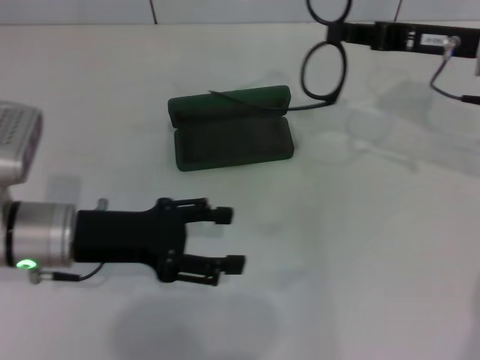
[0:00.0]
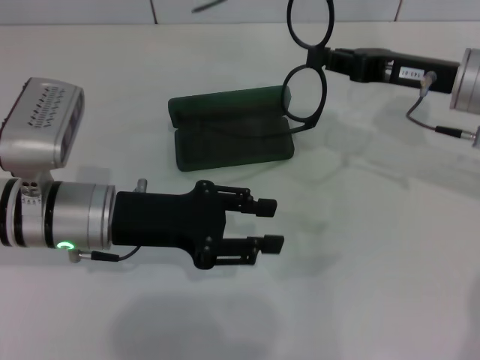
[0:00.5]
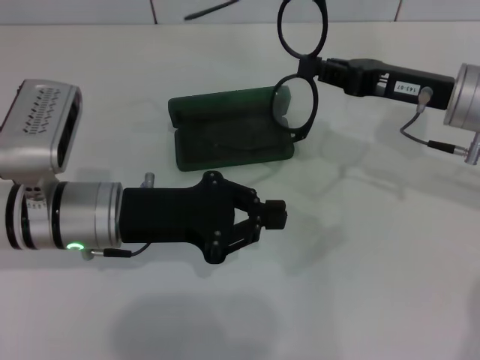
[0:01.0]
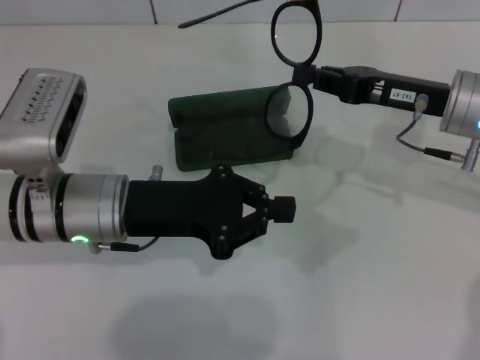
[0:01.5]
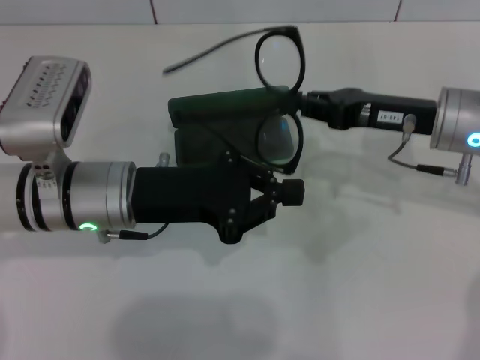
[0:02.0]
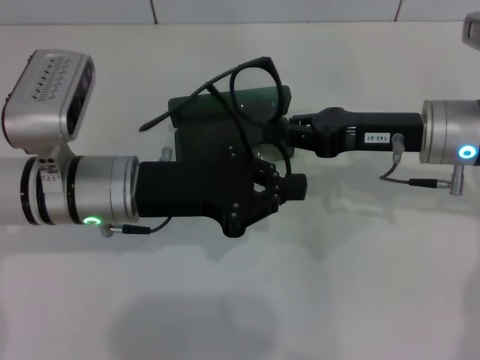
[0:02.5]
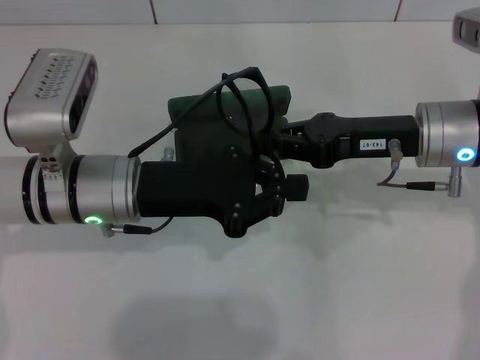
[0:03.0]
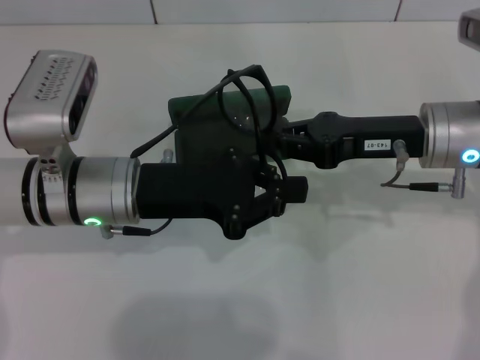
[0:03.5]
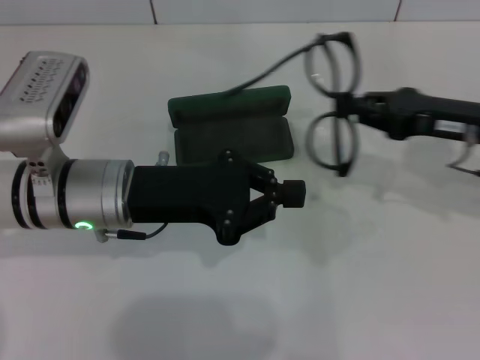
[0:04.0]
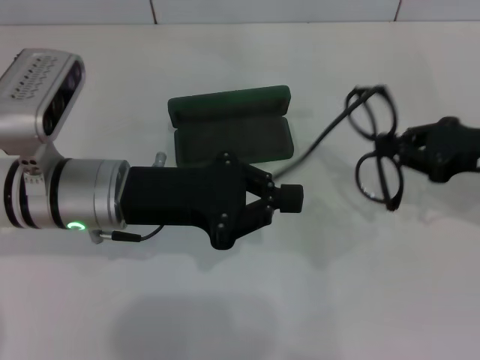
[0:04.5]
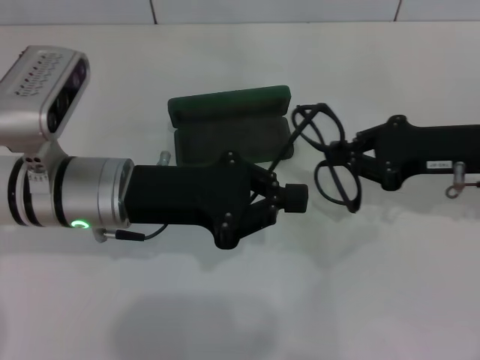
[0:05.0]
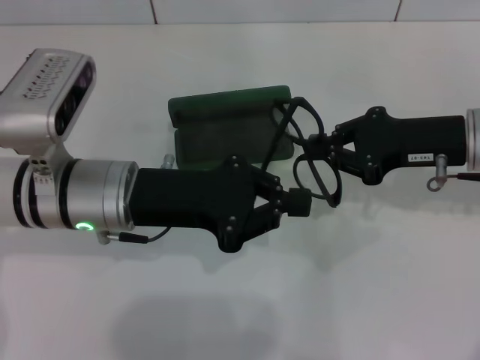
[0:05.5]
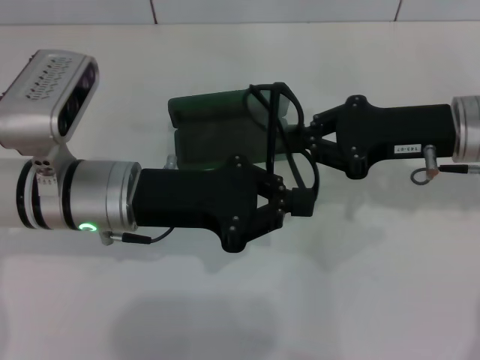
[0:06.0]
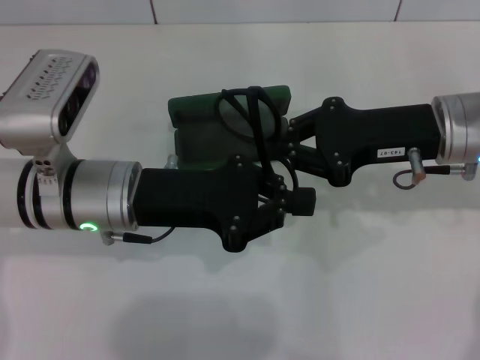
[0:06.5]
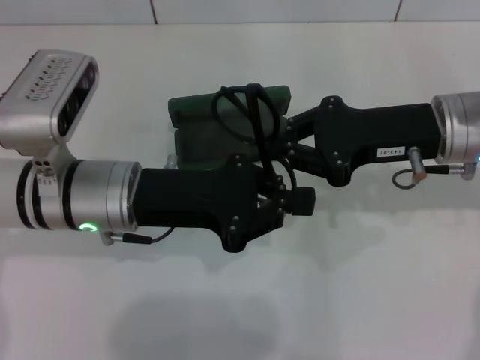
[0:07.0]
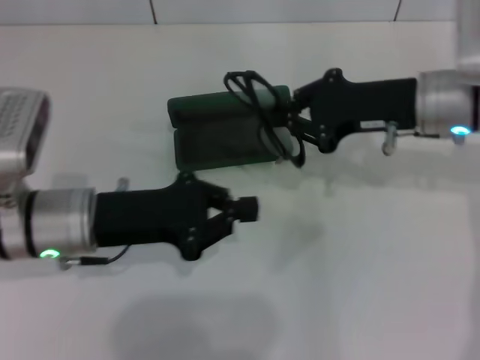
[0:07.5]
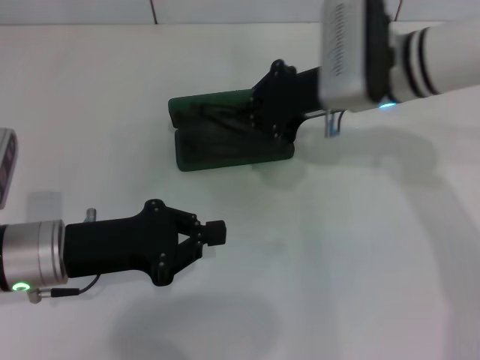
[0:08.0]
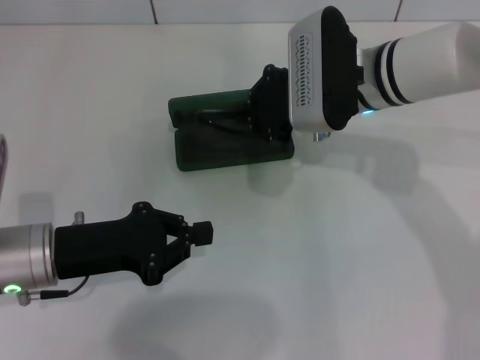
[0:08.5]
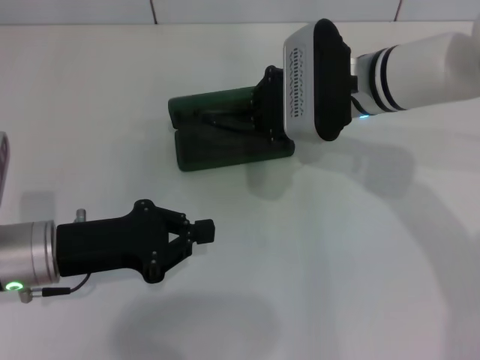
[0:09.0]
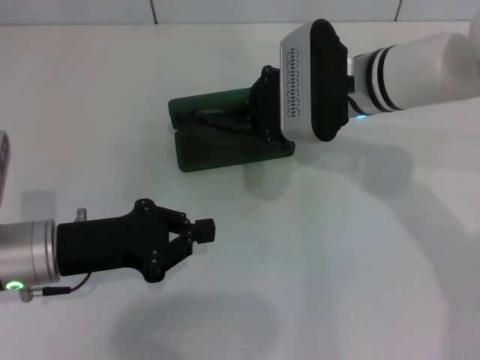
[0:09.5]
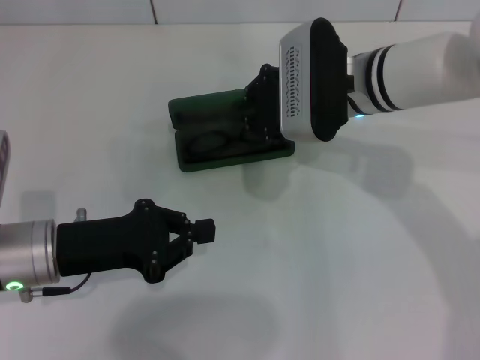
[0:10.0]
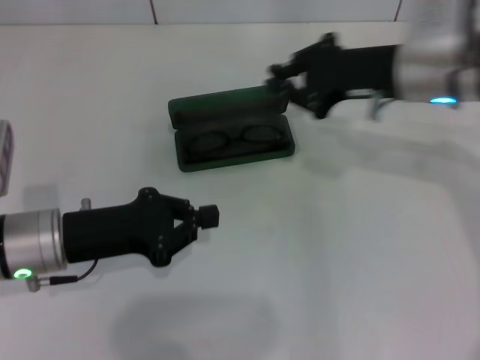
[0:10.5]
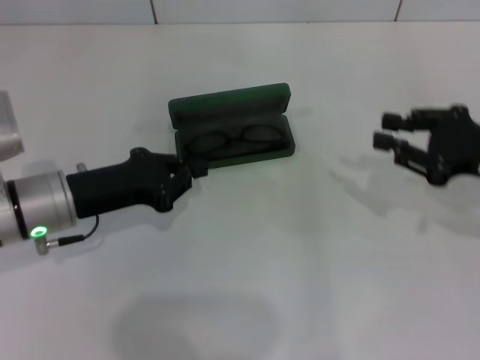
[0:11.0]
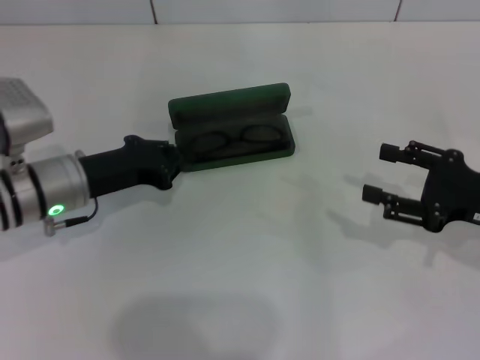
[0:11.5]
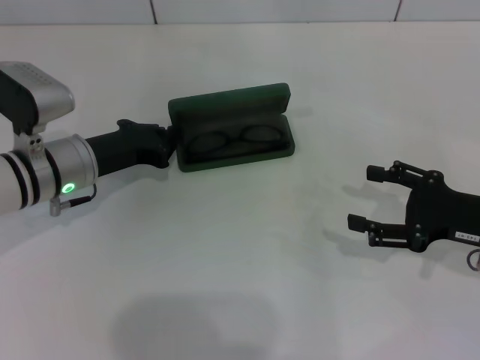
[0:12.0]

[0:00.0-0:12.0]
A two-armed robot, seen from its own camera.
Step, 0:00.0 to 0:06.5: Fold the frame with your left hand.
Step, 0:07.0 to 0:09.5: Put the glasses into the case with your right hand.
0:00.0 to 0:02.0: The right gripper moves downward, about 5 cm. The left gripper travels to the right by approximately 5 cm, and closes its fingers.
0:02.0 to 0:04.0: The right gripper heads to the right, covering roughly 5 cm.
0:04.0 to 0:06.0: The right gripper goes roughly 5 cm to the left.
0:06.0 to 0:08.0: The left gripper is displaced to the left by about 5 cm. Meanwhile the right gripper is displaced to the left and forward by roughly 10 cm.
0:08.0 to 0:10.0: The grippers stay close to where they were, moving slightly.
0:10.0 to 0:12.0: The right gripper goes some 25 cm to the right and backward, and opens its fingers, while the left gripper heads forward, covering roughly 10 cm.

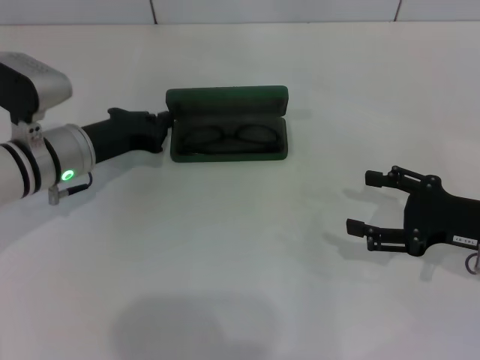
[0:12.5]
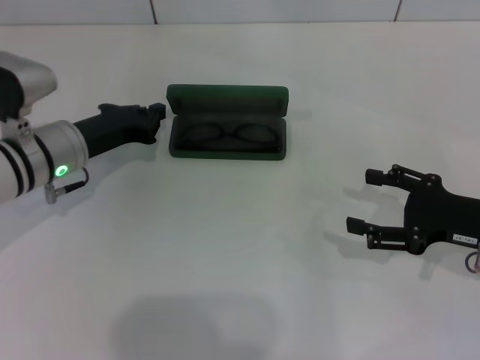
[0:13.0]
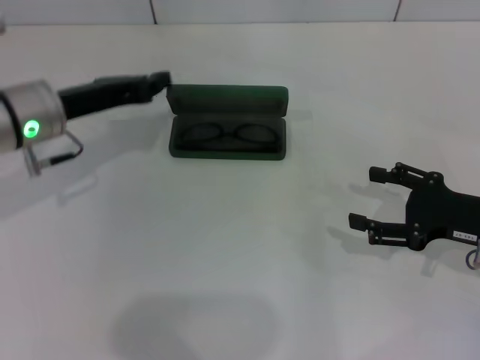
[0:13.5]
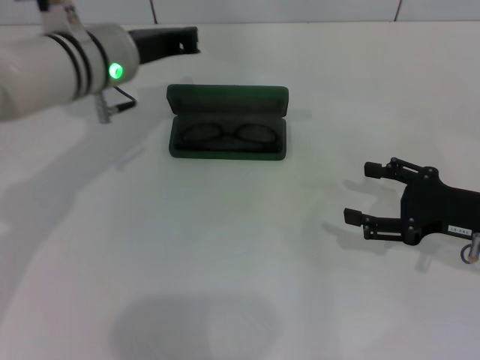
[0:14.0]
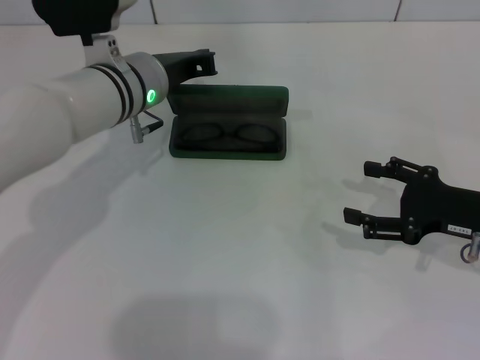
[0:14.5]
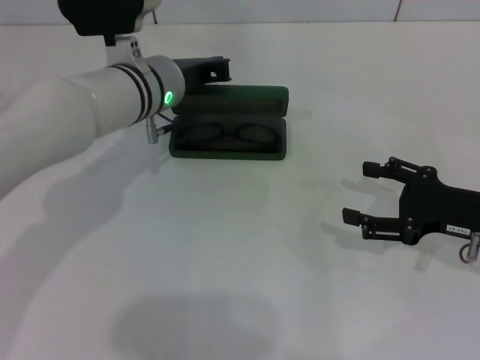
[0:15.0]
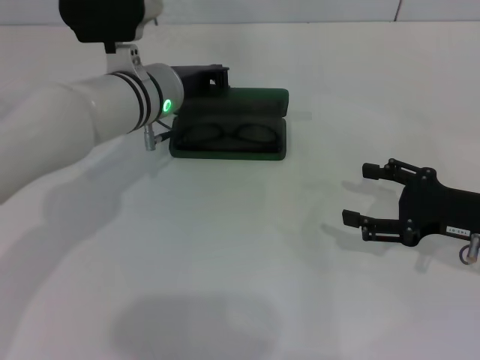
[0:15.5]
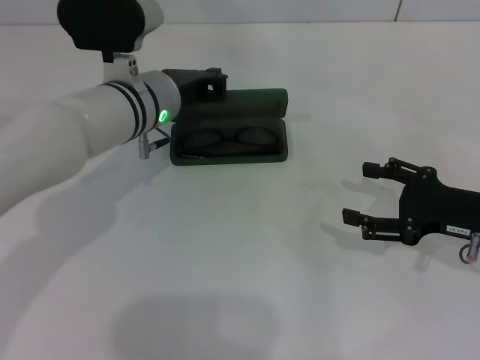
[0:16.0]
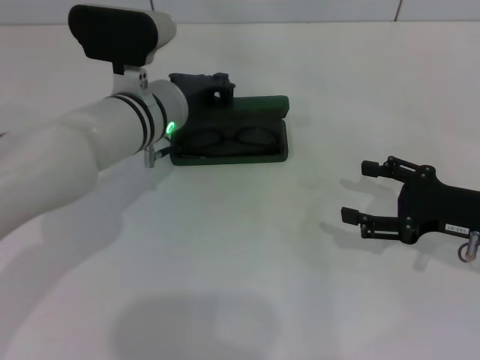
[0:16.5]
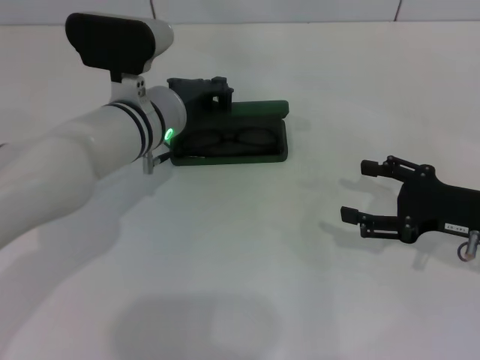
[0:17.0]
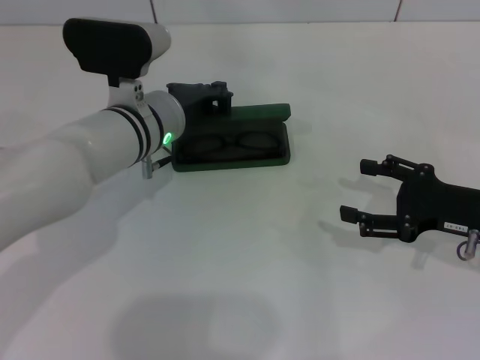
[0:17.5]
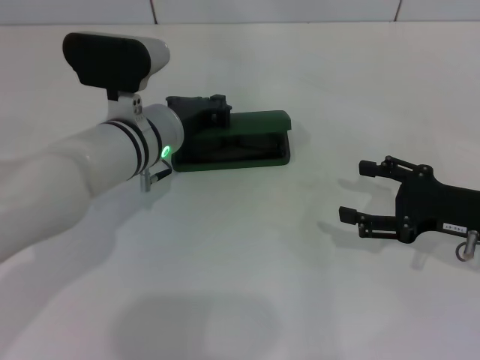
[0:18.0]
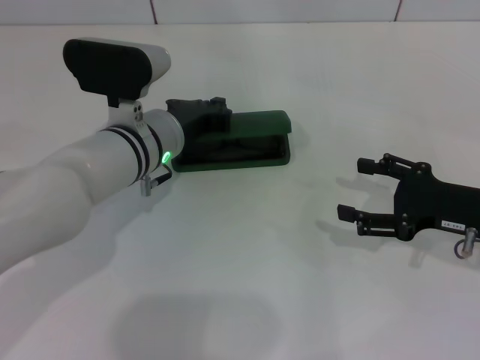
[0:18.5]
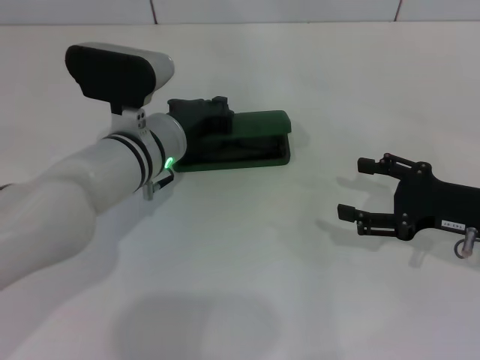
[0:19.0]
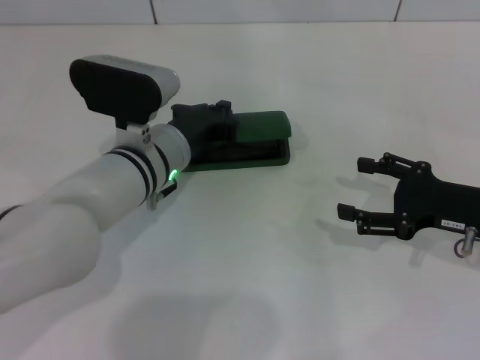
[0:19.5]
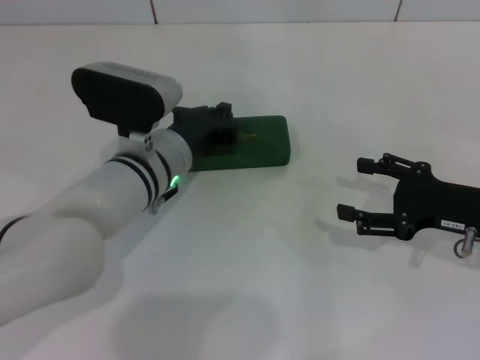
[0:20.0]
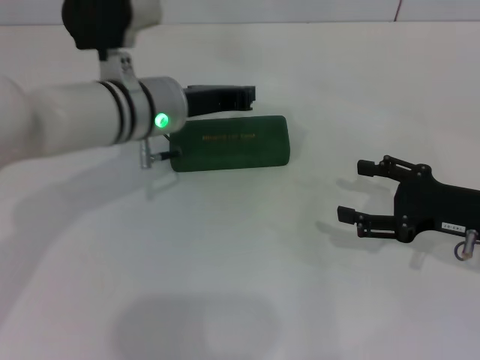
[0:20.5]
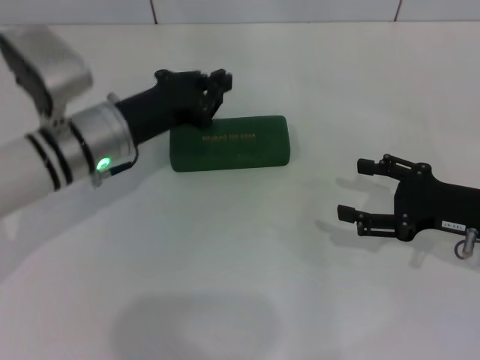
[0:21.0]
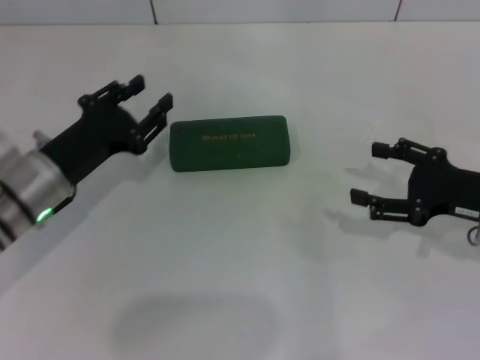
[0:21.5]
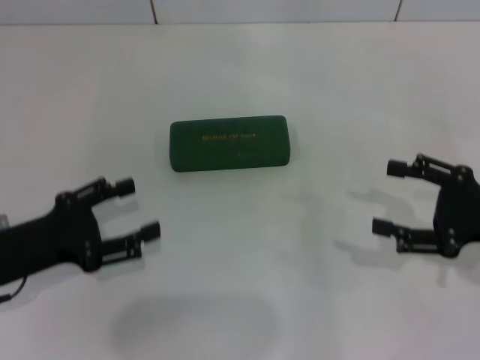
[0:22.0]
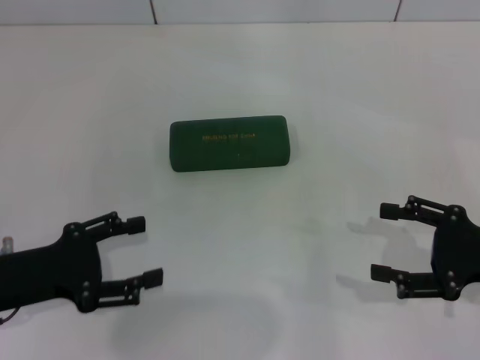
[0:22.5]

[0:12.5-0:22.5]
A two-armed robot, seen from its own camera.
Step, 0:12.5 to 0:19.5: Close the glasses case with your left hand.
0:12.5 to 0:14.5: The left gripper shifts roughly 10 cm to the right and upward.
0:14.5 to 0:18.5: There are only small adjustments of the grippers.
0:18.5 to 0:20.5: The grippers stay close to where they were, moving slightly.
0:20.5 to 0:22.5: The left gripper heads to the left and backward, covering roughly 25 cm, and opens its fingers; the right gripper changes place by about 5 cm.
